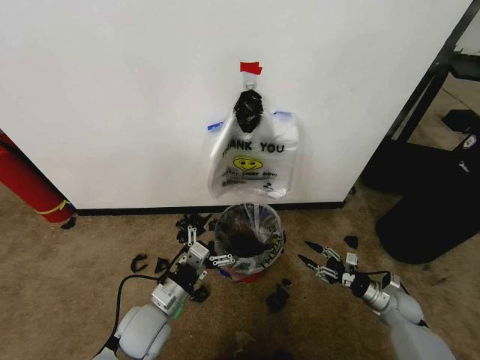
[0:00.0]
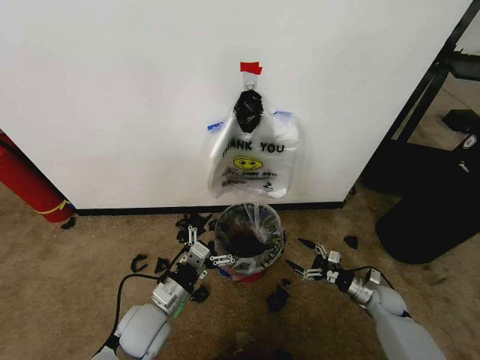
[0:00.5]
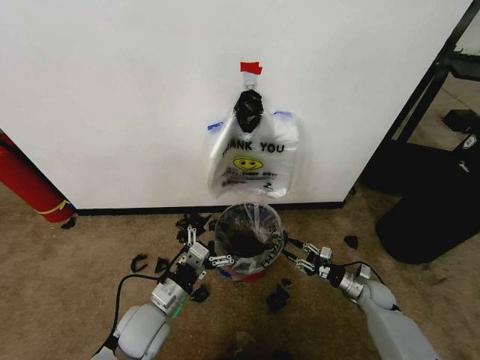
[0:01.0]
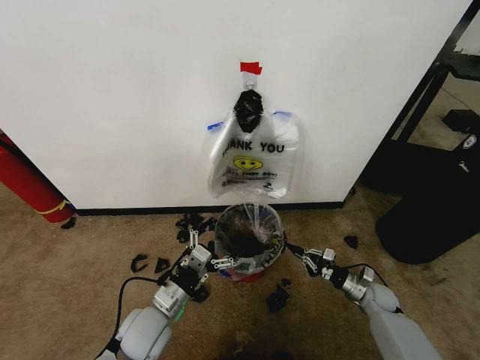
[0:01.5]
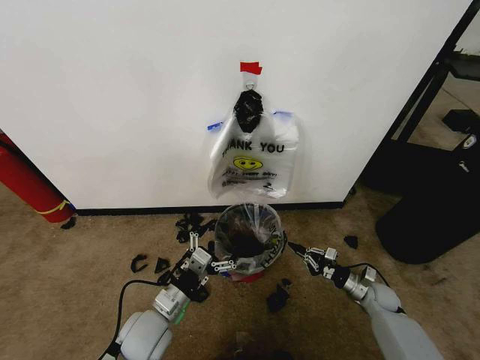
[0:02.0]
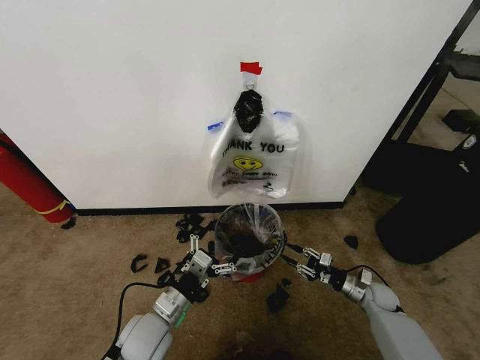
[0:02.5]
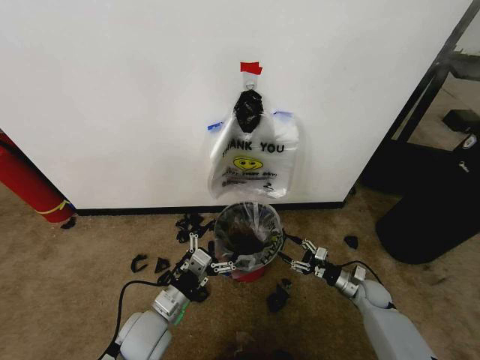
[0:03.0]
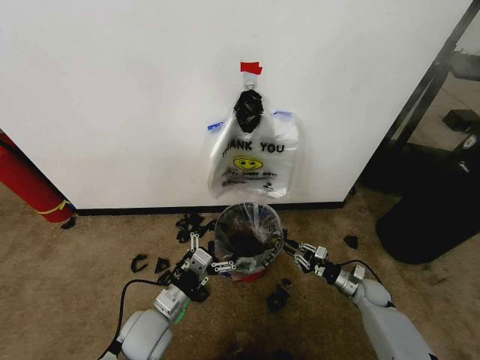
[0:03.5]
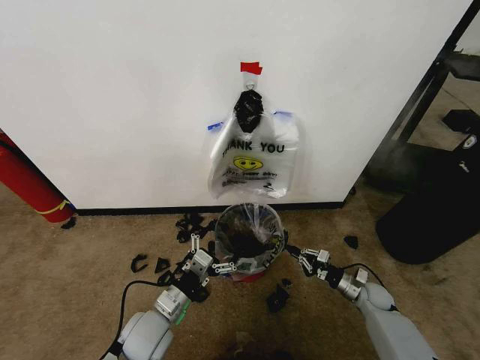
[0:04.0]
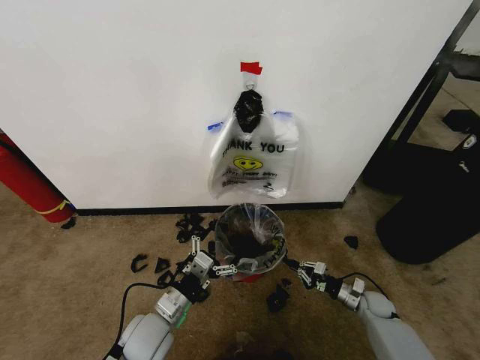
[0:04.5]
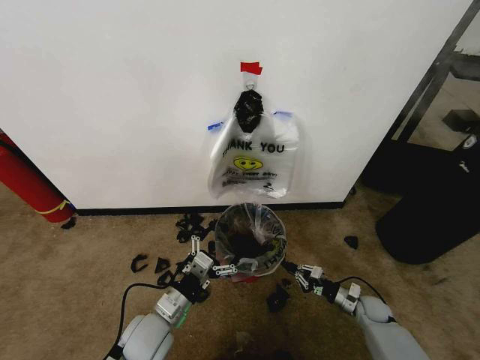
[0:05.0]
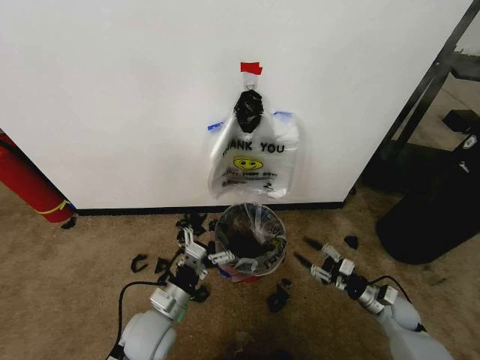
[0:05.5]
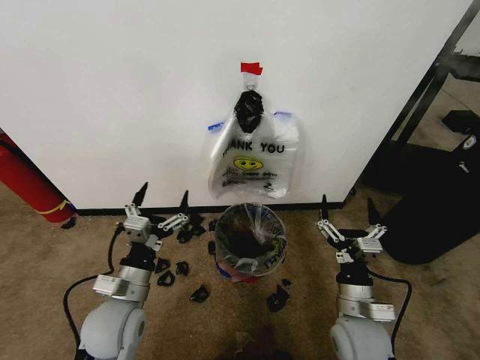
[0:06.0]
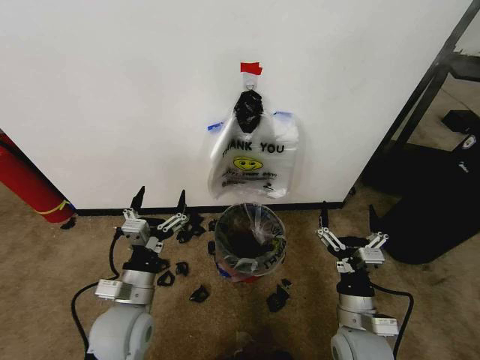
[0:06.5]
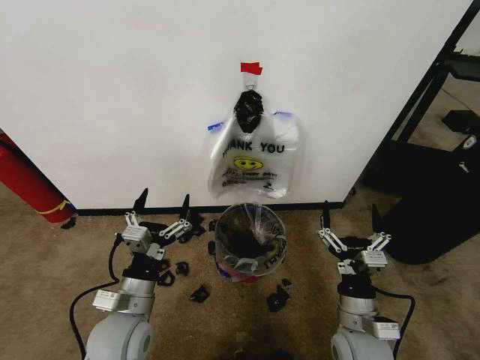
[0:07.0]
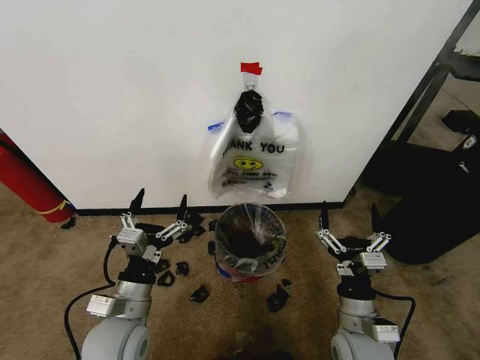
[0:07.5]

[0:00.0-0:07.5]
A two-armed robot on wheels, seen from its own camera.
Task of the whole recording: Pick up the garbage bag from the wall and place it over the trash bin.
0:00.0 to 0:02.0: The right gripper closes up.
0:02.0 to 0:04.0: The right gripper opens, then closes again.
0:04.0 to 0:05.5: The right gripper heads backward, covering approximately 5 cm, and opens.
0:05.5 to 0:07.5: The right gripper heads to the left, upward and backward, covering roughly 25 cm, and opens its fingers, while the left gripper heads upward, covering some 5 cm.

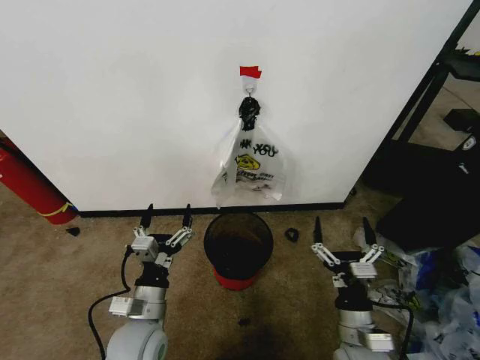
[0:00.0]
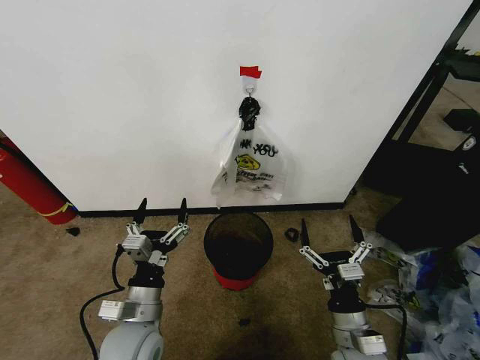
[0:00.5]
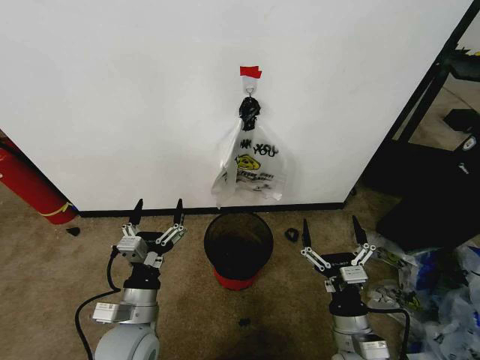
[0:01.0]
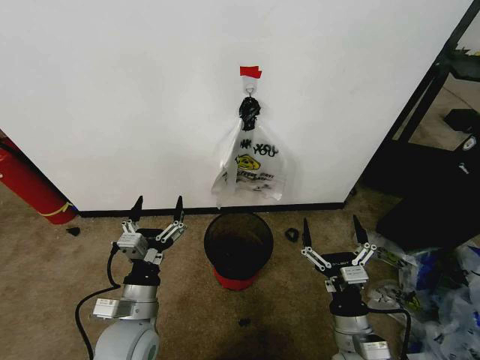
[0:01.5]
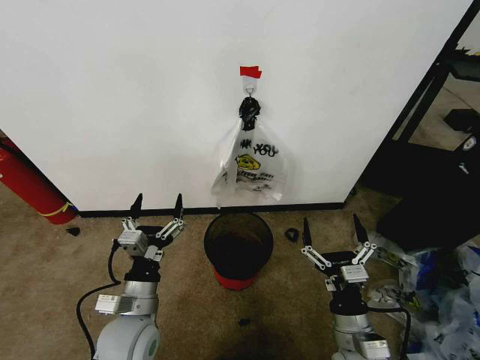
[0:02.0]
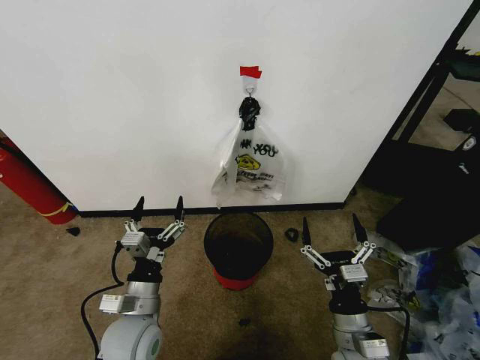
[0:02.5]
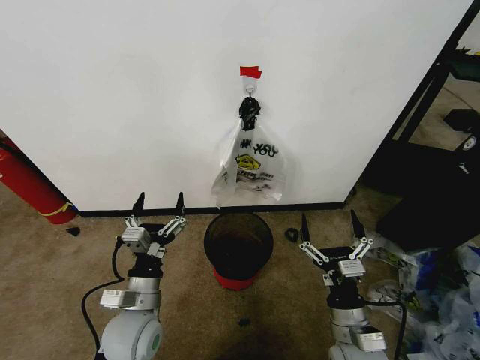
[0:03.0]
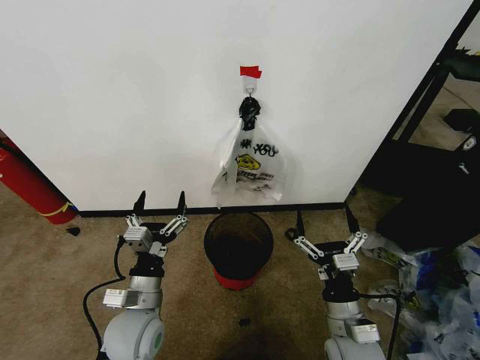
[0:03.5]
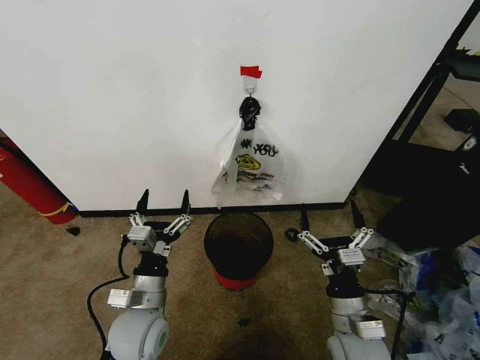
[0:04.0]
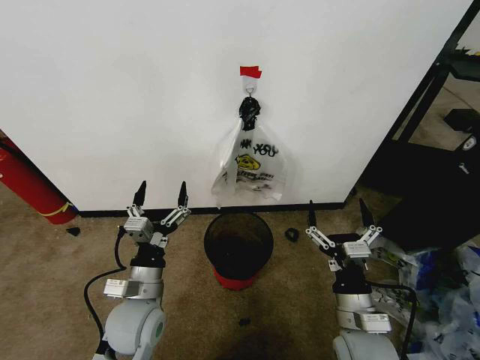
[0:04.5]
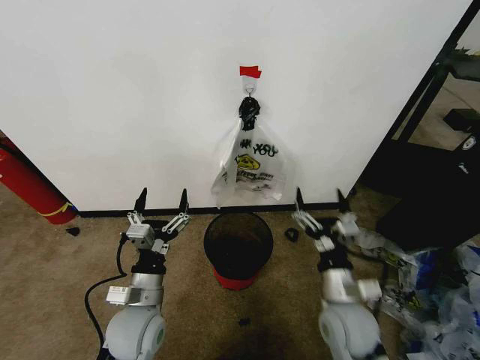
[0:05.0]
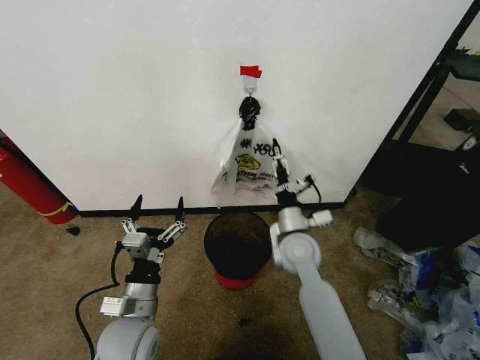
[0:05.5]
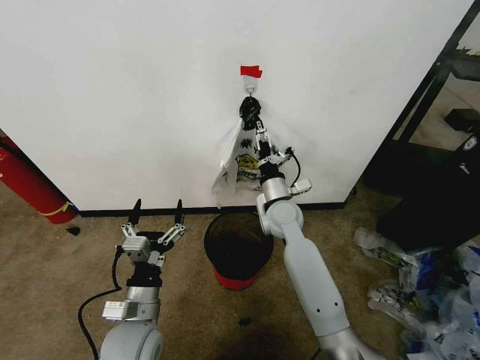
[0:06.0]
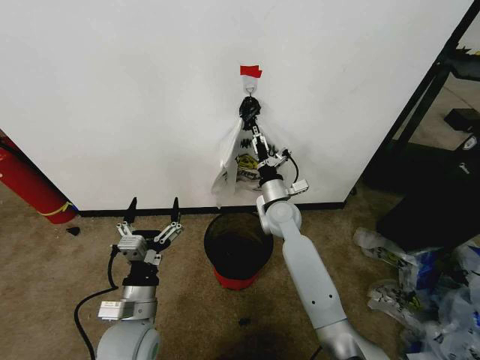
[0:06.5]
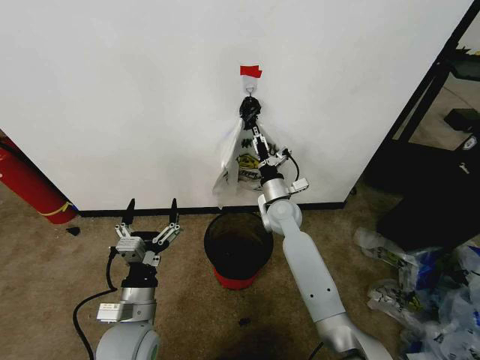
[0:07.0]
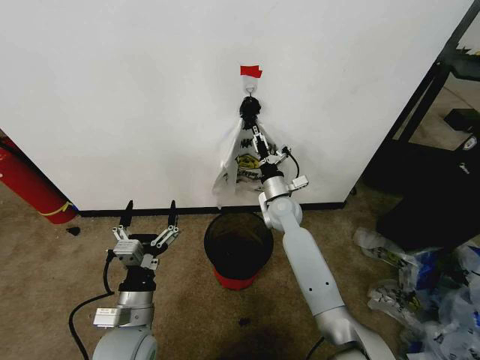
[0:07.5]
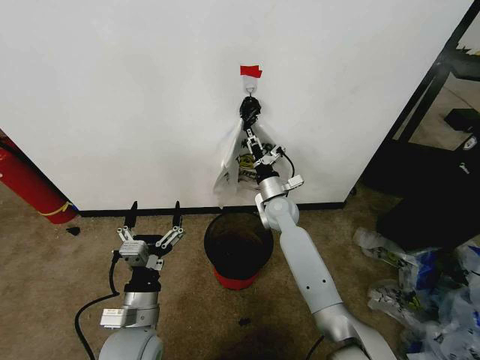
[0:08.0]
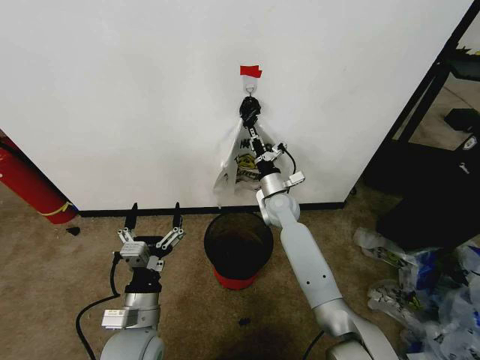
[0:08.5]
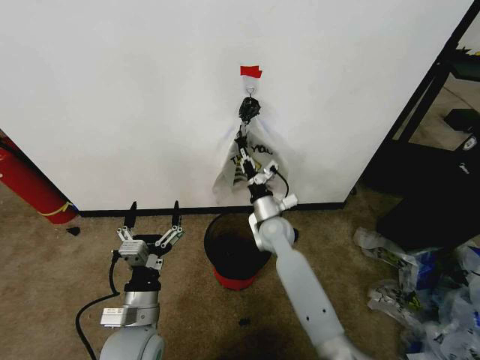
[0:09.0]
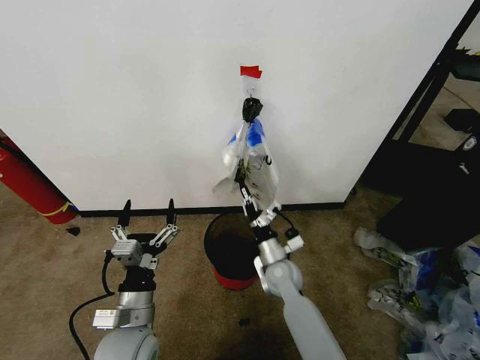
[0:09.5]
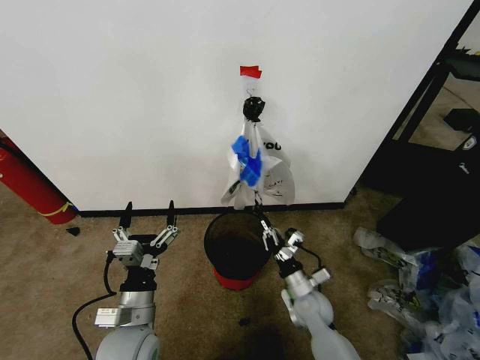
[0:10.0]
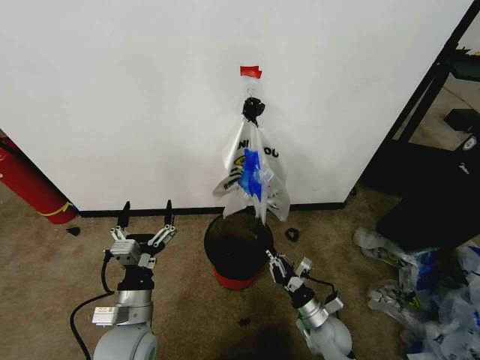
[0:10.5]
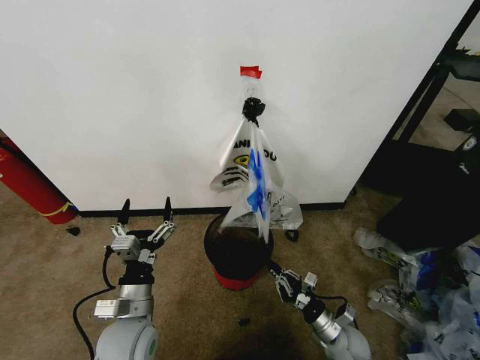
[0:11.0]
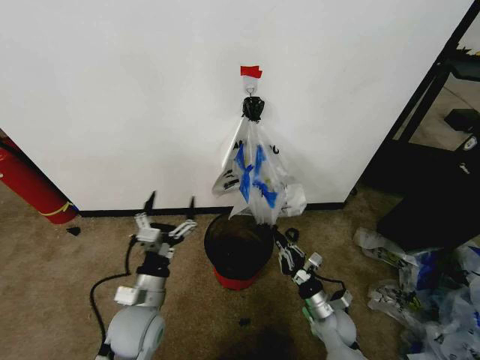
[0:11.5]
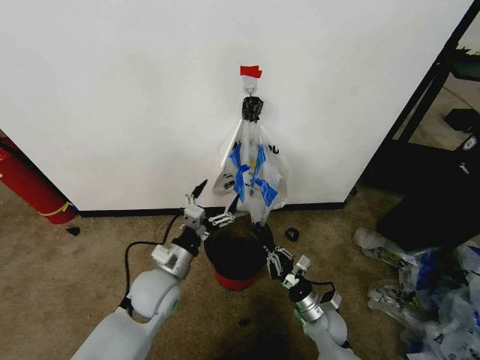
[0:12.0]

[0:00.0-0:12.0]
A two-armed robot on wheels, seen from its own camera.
Task of the whole recording: Pick up the garbage bag from the wall and place it over the trash bin.
0:02.0 to 0:04.0: The grippers stay close to where they were, moving slightly.
0:04.0 to 0:06.0: The right gripper travels forward by approximately 25 cm.
0:06.0 to 0:08.0: The right gripper shifts by approximately 5 cm, and closes.
0:08.0 to 0:10.0: The right gripper travels backward and downward by roughly 25 cm.
0:10.0 to 0:12.0: The left gripper is displaced forward by approximately 10 cm.

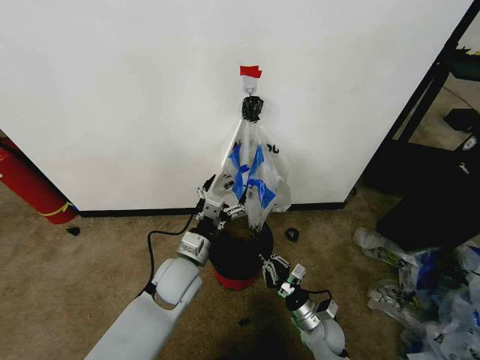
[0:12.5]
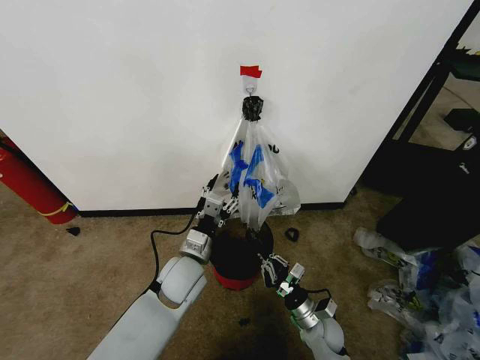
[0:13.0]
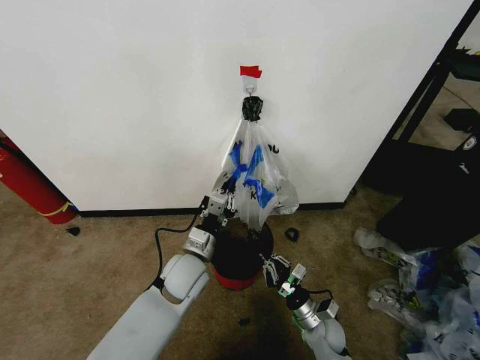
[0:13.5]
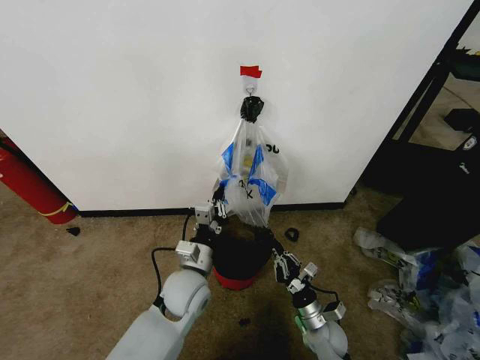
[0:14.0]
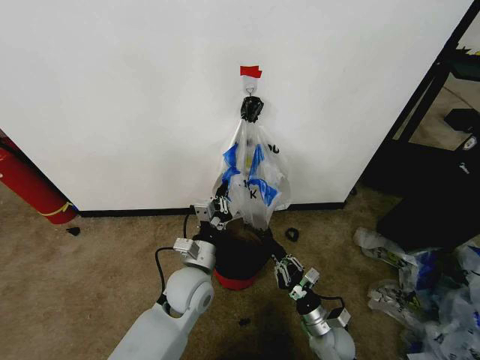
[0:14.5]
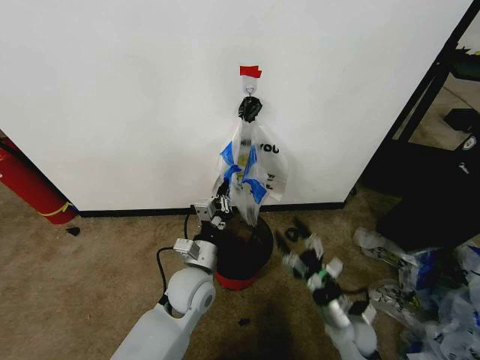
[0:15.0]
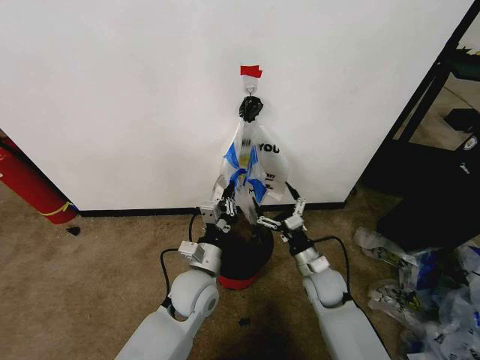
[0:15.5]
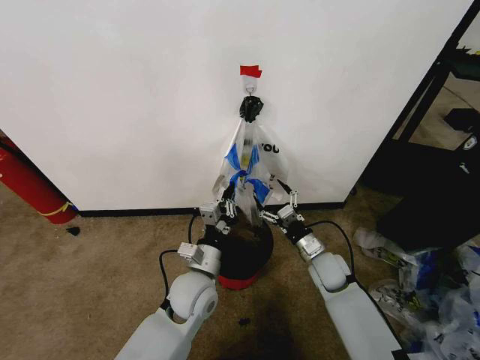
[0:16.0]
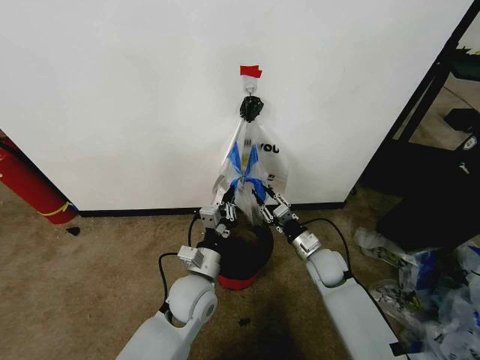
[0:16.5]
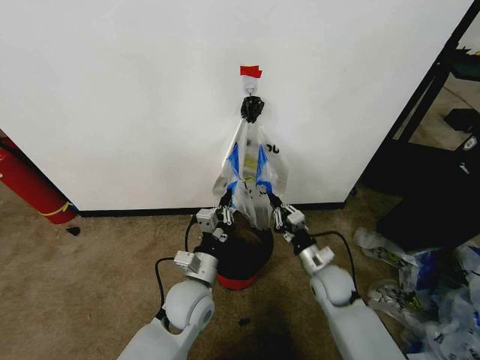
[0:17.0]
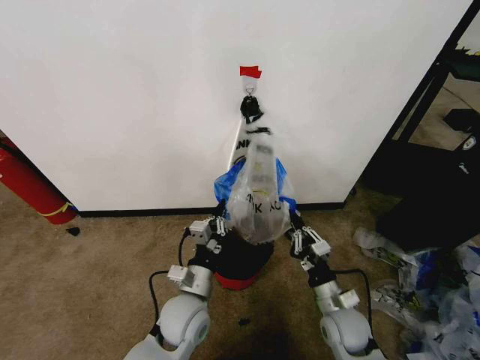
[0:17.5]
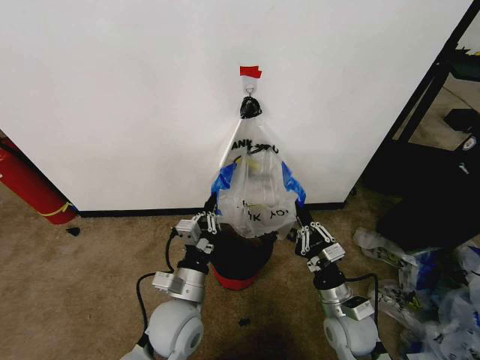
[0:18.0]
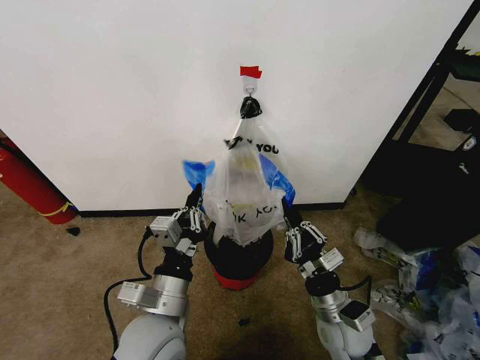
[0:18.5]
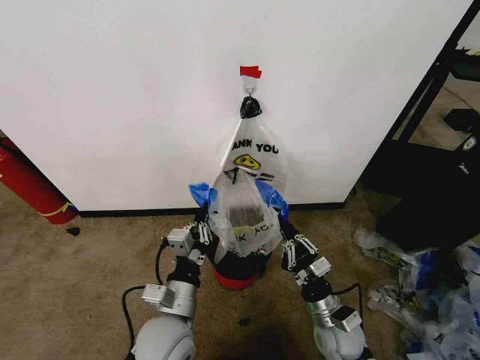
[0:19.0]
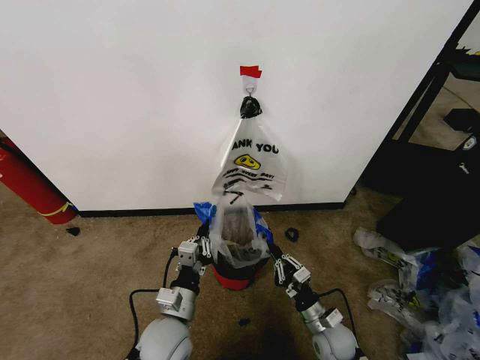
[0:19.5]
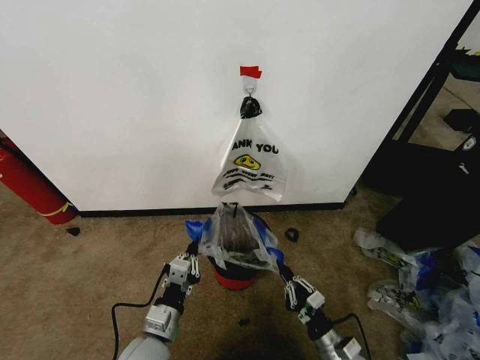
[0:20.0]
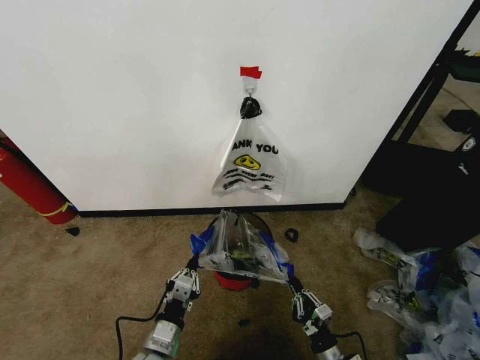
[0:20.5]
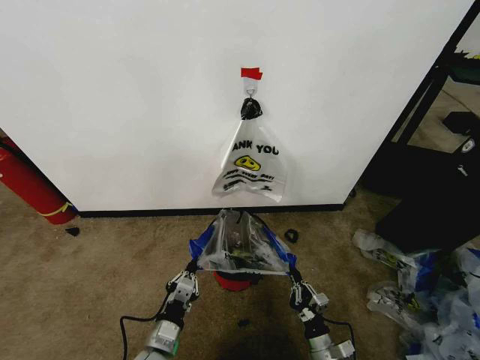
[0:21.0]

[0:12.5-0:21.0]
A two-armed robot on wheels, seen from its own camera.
Task of the whole recording: Pick up the garbage bag from the wall and place it over the trash bin.
0:12.5 to 0:14.5: The left gripper closes.
0:14.5 to 0:16.5: The right gripper shifts some 20 cm forward and upward, and opens, then closes again.
0:16.5 to 0:19.0: The right gripper goes approximately 15 cm backward, while the left gripper shifts roughly 10 cm backward.
0:19.0 to 0:21.0: The left gripper moves downward and to the left, about 15 cm, while the right gripper goes roughly 15 cm downward and backward.
